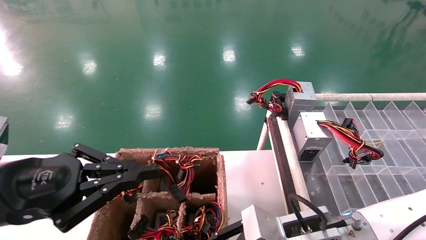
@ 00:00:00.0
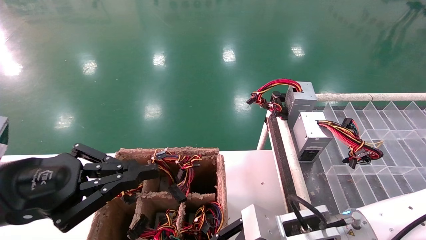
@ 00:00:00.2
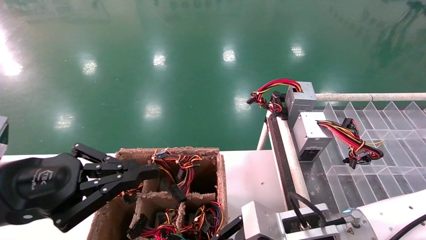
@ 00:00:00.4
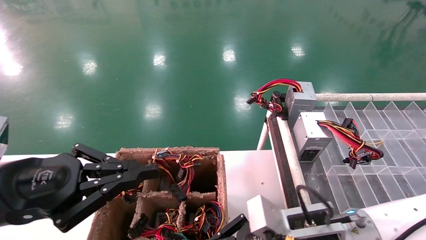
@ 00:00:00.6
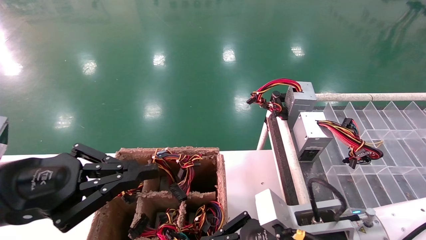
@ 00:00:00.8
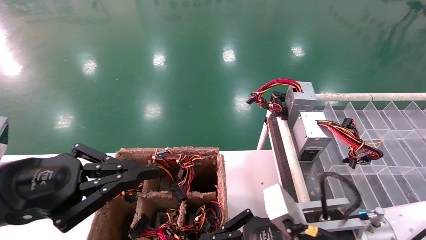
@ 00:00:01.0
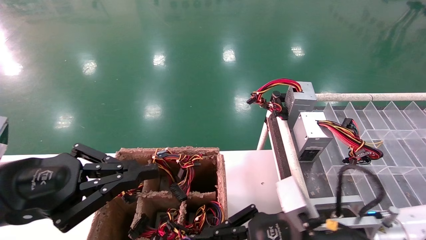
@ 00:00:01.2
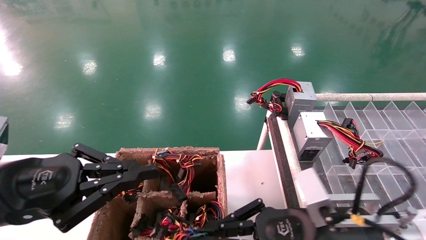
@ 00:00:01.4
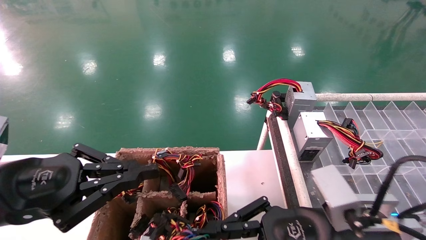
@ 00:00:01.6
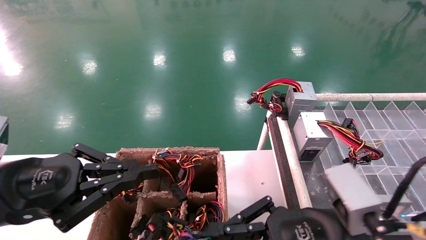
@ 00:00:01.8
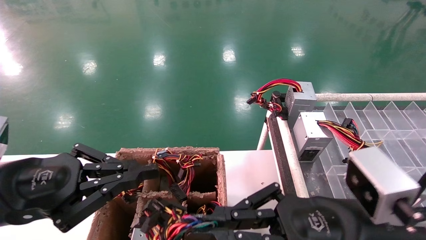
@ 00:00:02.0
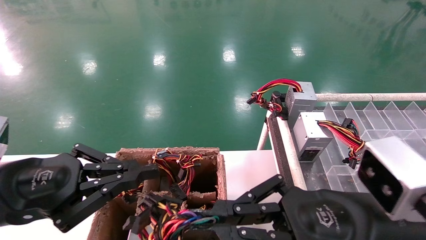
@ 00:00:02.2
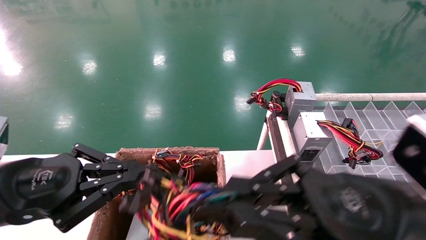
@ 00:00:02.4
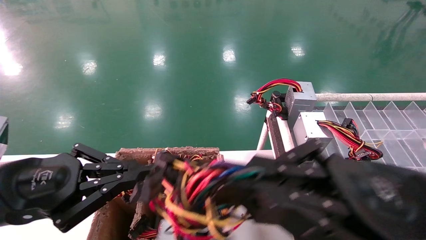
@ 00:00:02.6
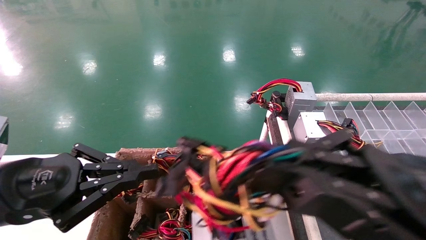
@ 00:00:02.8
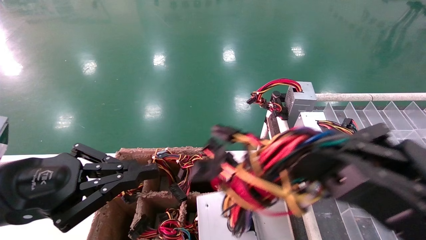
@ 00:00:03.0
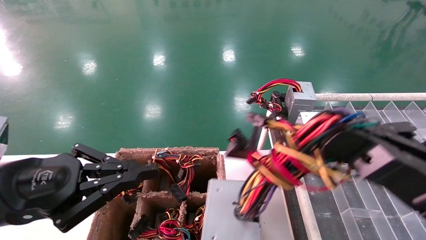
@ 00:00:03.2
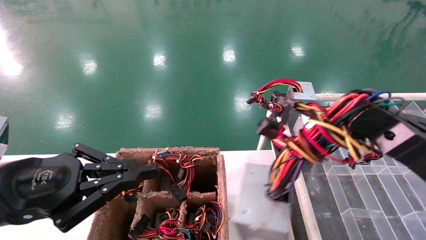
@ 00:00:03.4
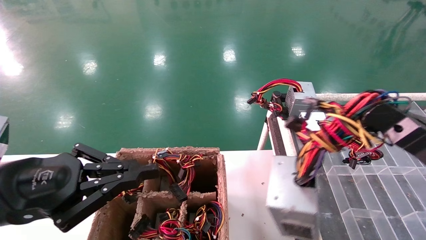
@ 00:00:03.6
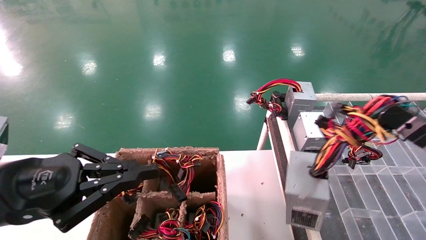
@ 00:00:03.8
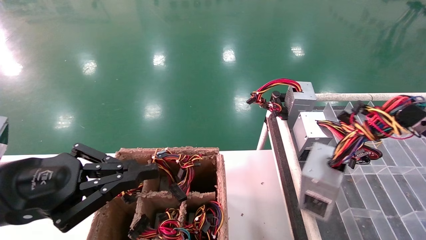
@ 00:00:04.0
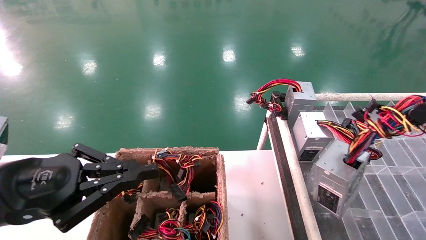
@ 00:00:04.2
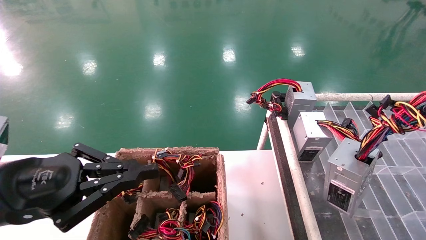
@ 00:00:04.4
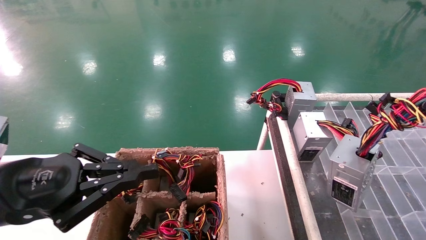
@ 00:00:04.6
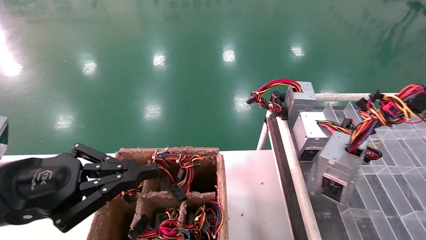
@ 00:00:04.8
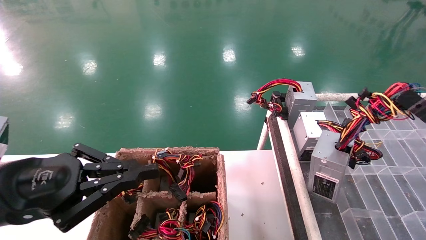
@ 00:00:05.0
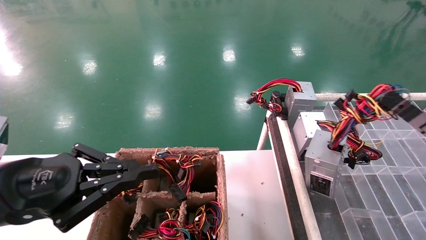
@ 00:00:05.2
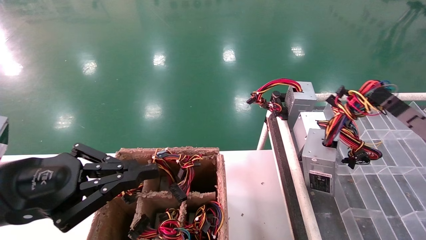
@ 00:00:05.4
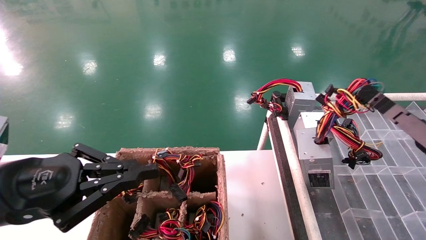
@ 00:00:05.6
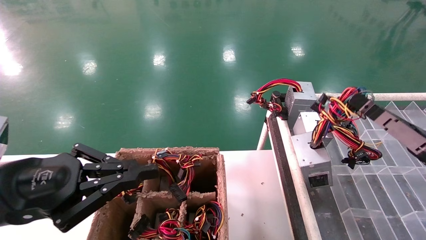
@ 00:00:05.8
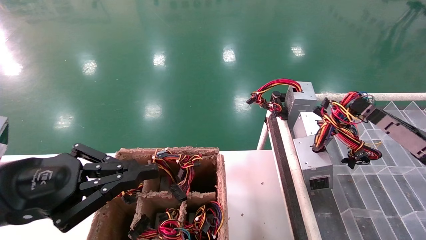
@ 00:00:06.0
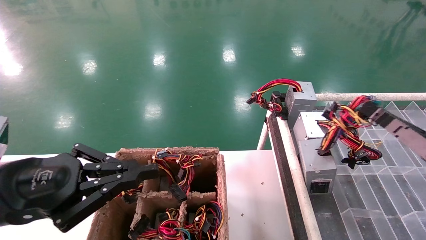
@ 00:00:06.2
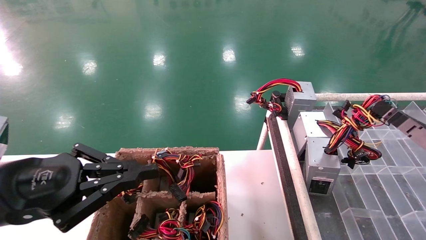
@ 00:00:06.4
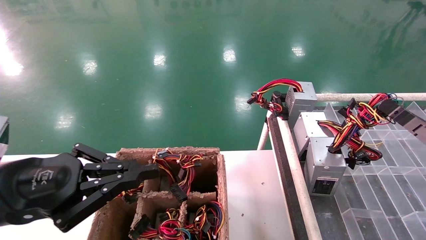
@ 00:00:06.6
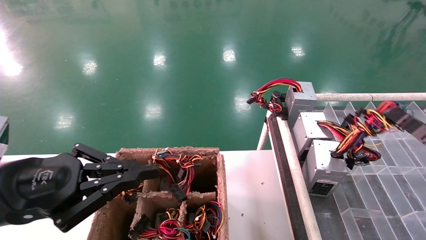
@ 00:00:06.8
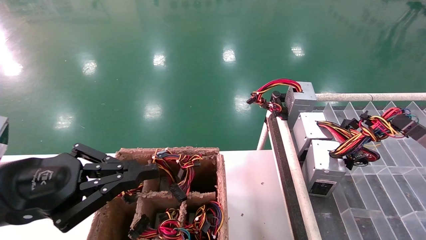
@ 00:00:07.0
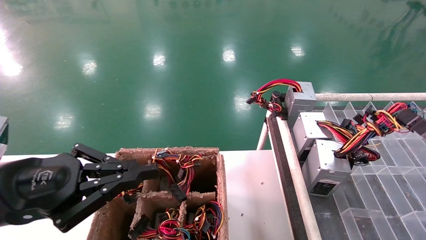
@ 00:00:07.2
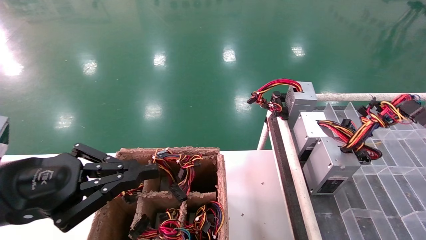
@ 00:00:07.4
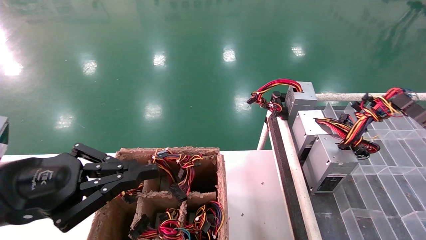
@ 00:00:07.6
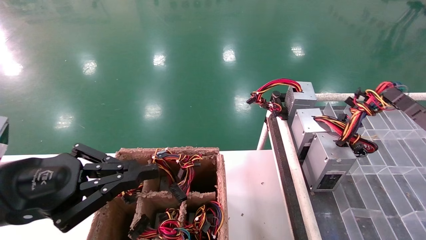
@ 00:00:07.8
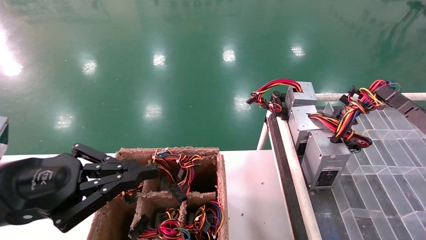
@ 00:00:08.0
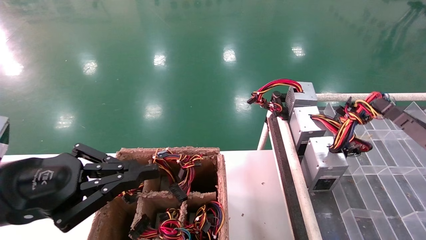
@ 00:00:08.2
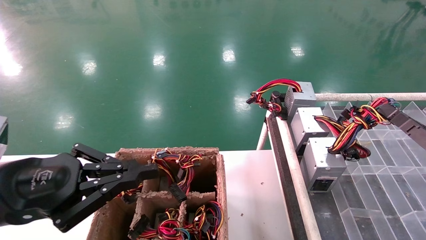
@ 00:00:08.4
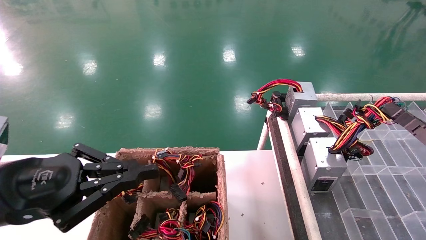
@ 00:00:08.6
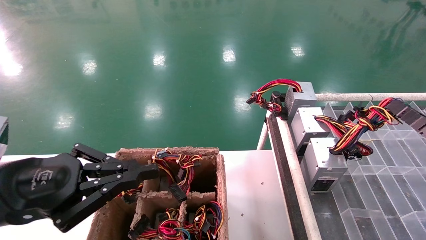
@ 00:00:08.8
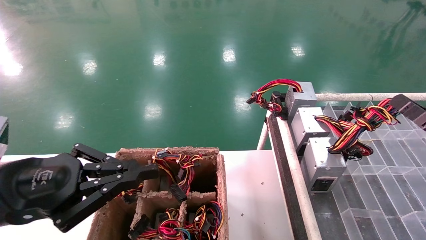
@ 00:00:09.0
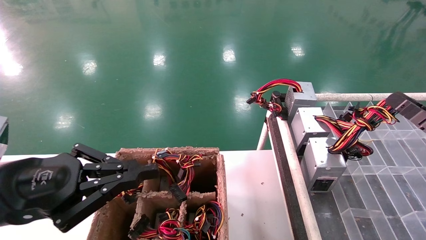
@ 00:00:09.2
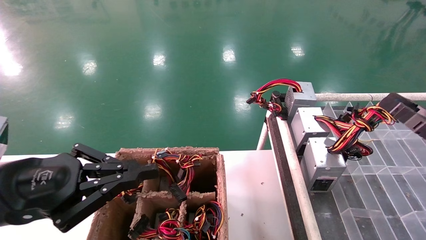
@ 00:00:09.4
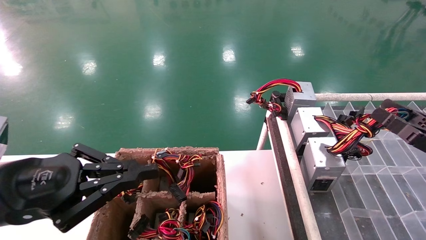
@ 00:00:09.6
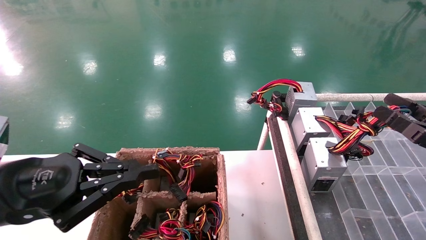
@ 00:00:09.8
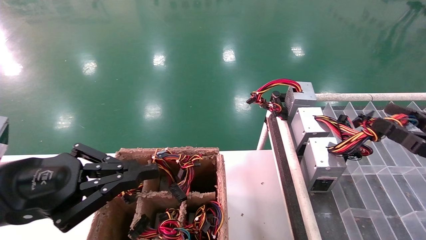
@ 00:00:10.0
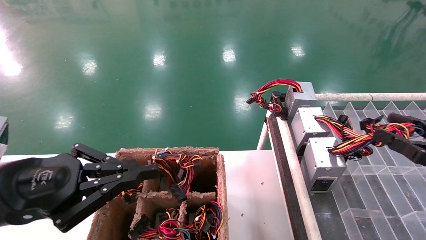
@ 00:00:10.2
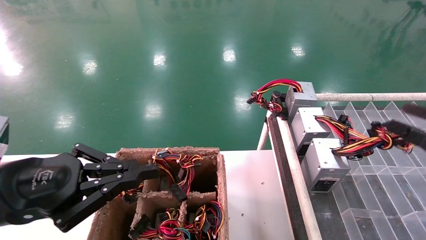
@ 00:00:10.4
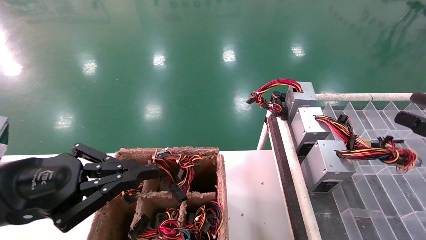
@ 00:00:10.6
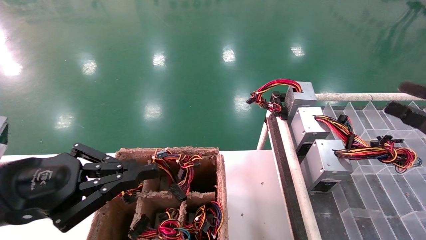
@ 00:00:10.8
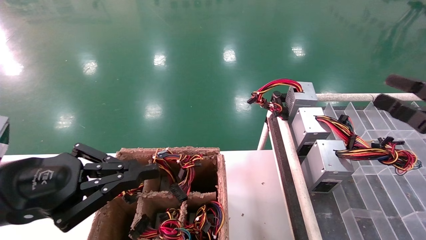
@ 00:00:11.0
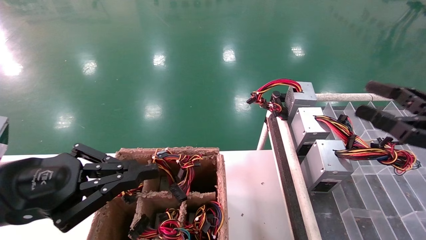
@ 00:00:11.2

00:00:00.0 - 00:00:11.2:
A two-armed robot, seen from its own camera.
Step, 00:00:00.6 - 00:00:10.8: Place the main unit power supply in the designated area.
00:00:00.0 - 00:00:01.6: The right gripper changes place by approximately 5 cm, and closes its fingers.
00:00:01.6 - 00:00:03.2: The right gripper goes some 15 cm to the right, upward and backward.
00:00:03.2 - 00:00:04.8: The right gripper is displaced to the right and downward by approximately 15 cm.
00:00:04.8 - 00:00:06.4: The grippers move only a little.
00:00:06.4 - 00:00:08.0: The grippers make only small movements.
00:00:08.0 - 00:00:09.6: The right gripper opens its fingers.
00:00:09.6 - 00:00:11.2: The right gripper goes some 5 cm upward, and opens.

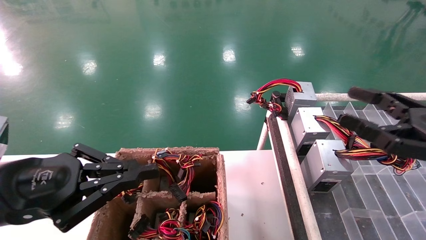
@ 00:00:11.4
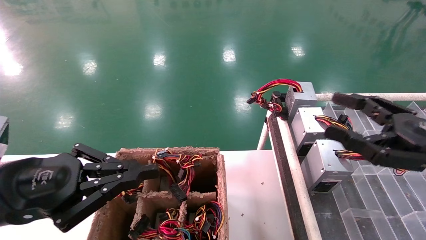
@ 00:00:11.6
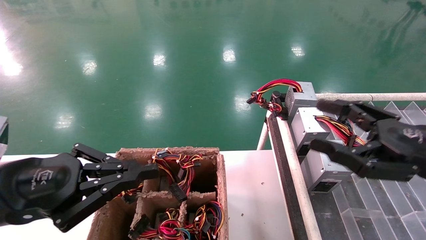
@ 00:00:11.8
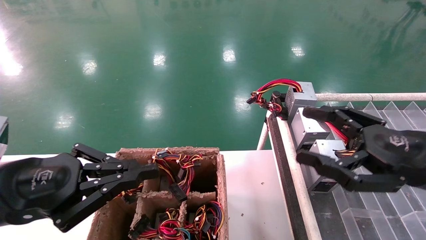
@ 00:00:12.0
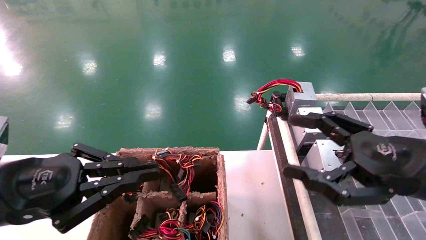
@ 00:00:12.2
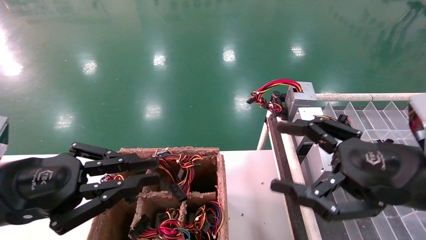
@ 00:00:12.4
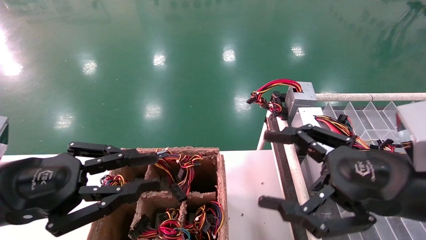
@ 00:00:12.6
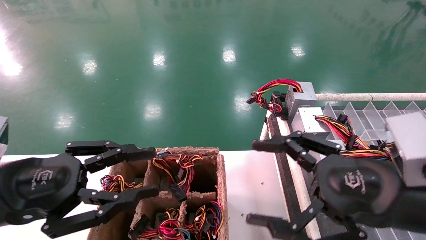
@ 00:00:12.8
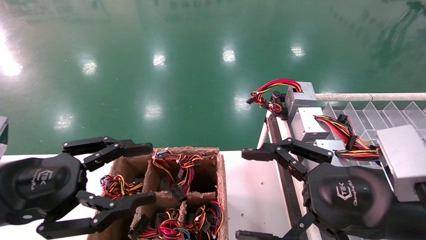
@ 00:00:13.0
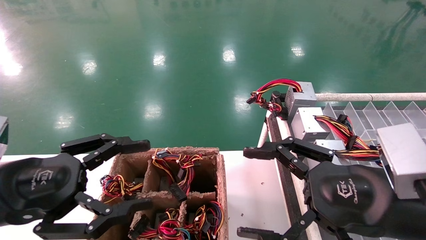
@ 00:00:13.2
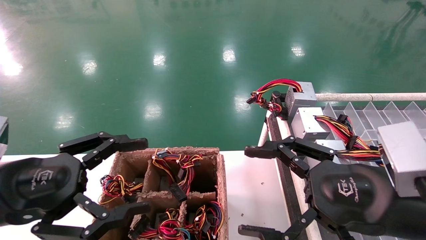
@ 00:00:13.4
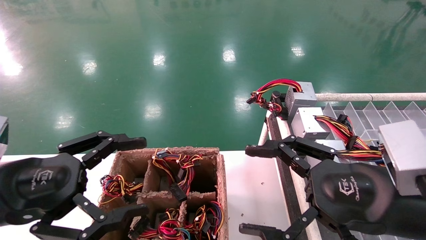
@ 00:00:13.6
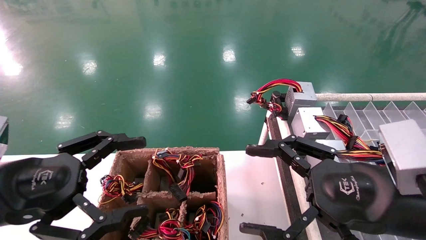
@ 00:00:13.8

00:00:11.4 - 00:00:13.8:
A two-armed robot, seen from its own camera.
00:00:11.4 - 00:00:12.6: The right gripper travels to the left by about 10 cm.
00:00:12.6 - 00:00:13.8: The left gripper opens its fingers.
